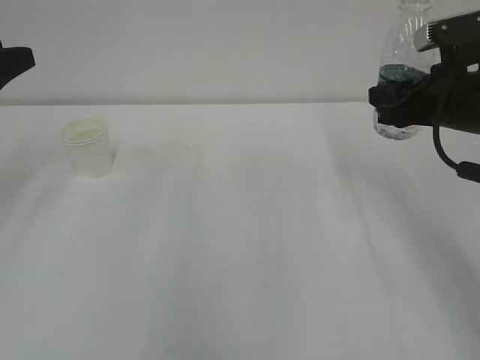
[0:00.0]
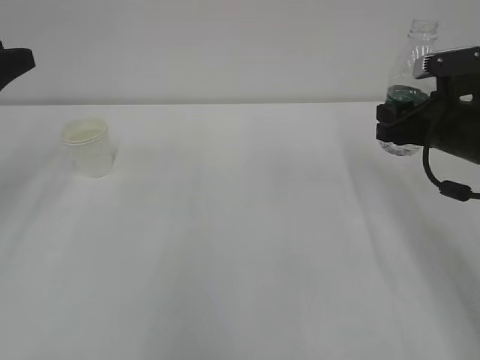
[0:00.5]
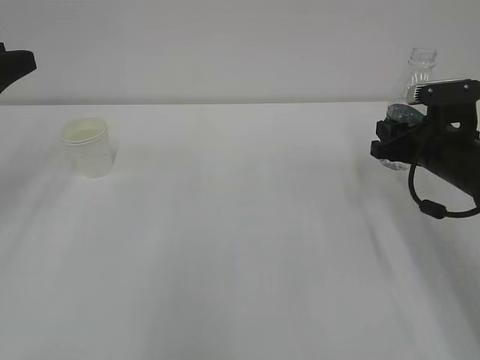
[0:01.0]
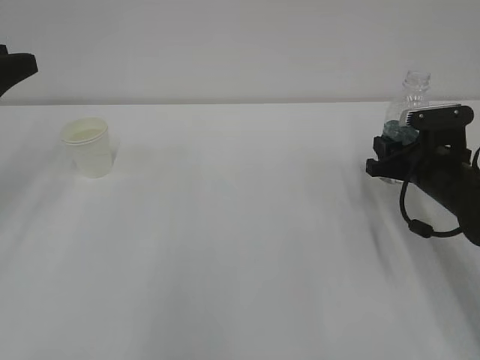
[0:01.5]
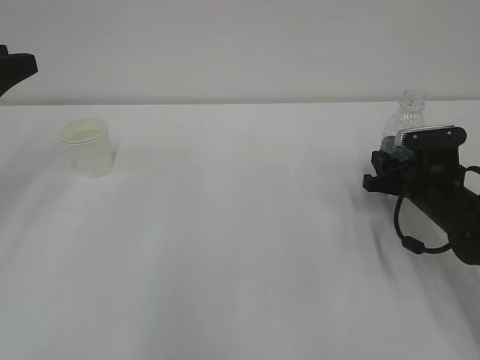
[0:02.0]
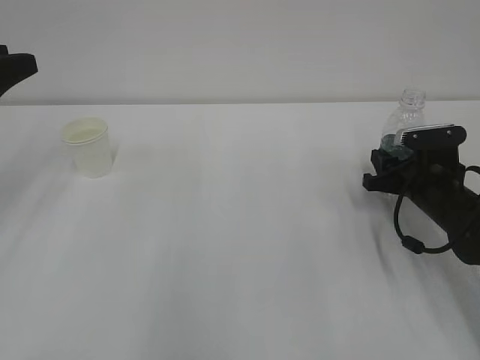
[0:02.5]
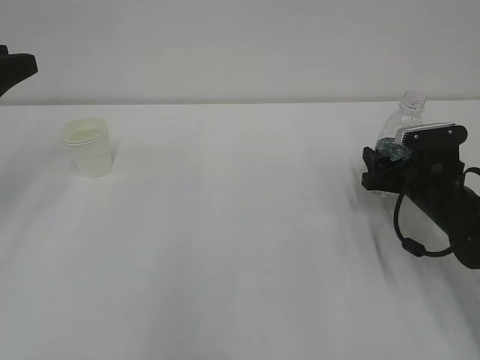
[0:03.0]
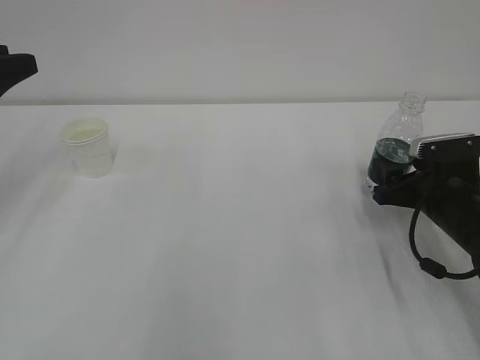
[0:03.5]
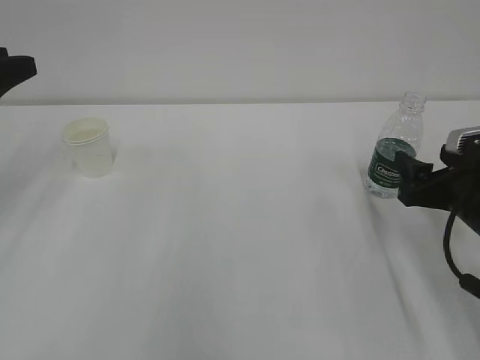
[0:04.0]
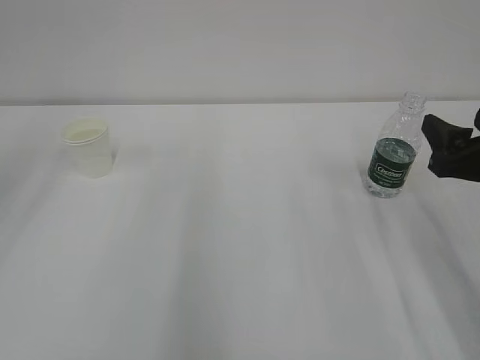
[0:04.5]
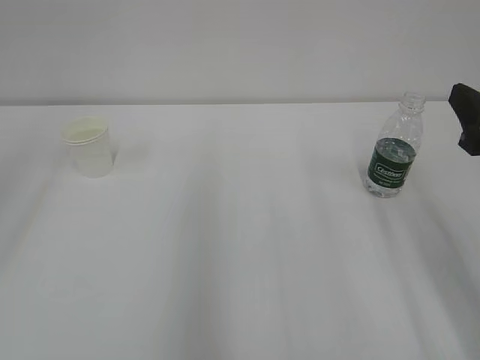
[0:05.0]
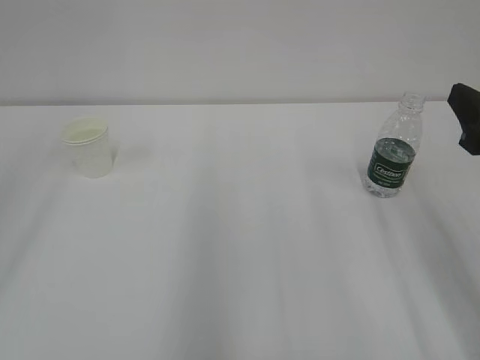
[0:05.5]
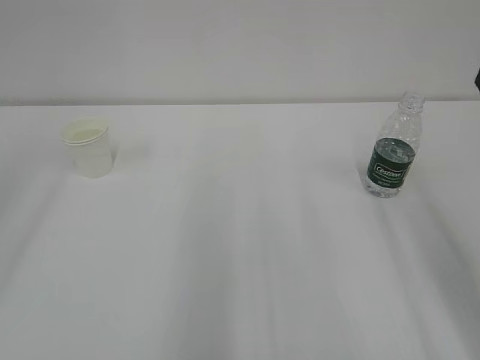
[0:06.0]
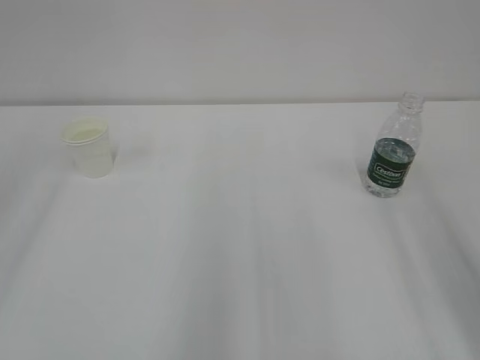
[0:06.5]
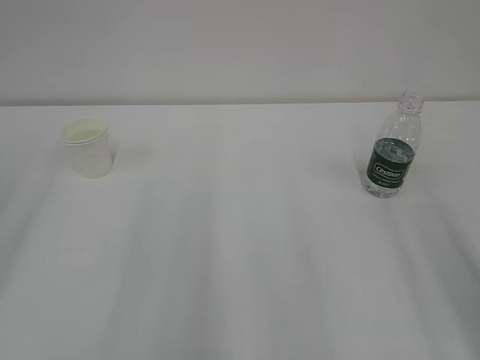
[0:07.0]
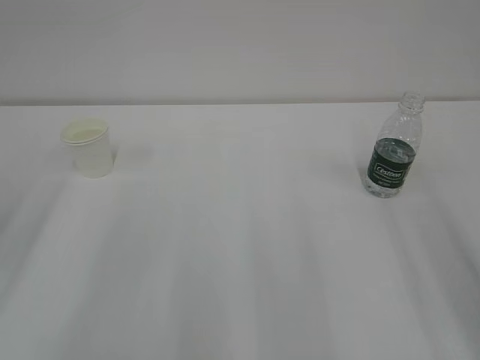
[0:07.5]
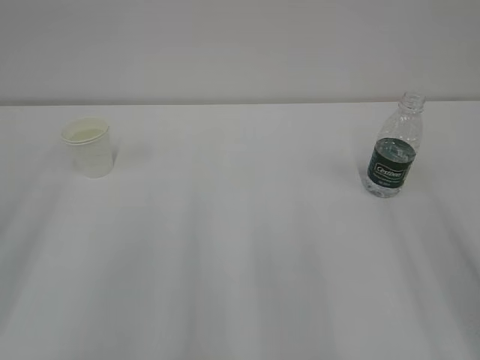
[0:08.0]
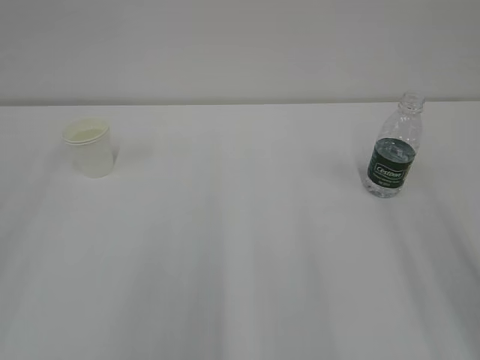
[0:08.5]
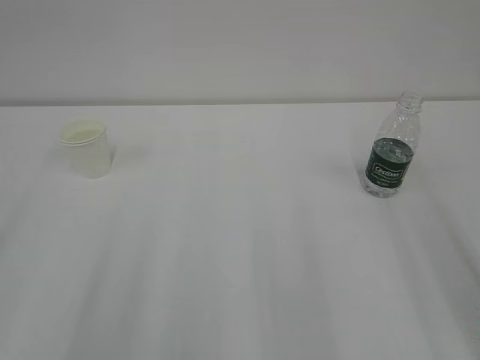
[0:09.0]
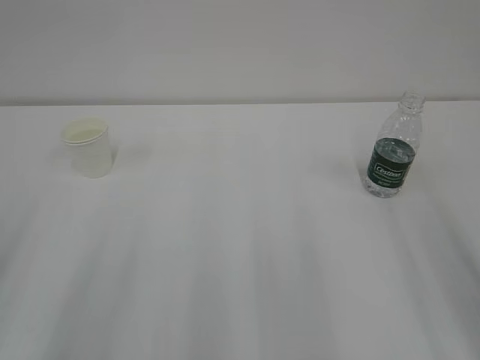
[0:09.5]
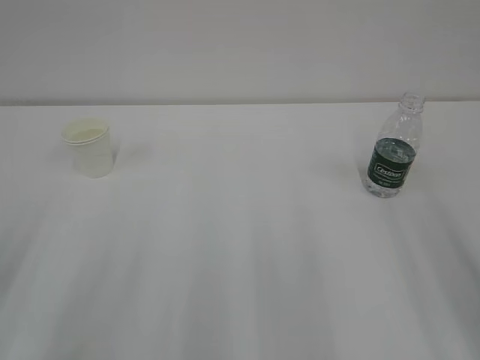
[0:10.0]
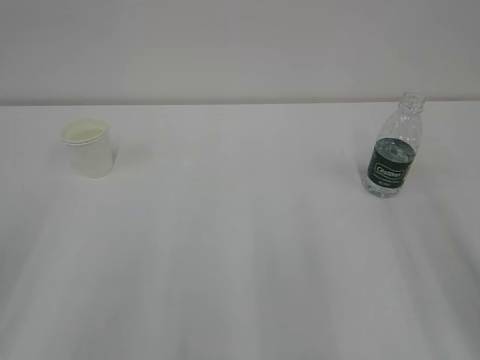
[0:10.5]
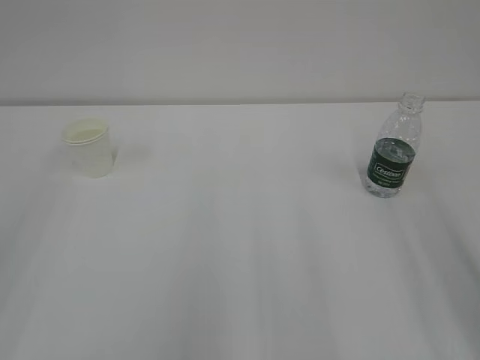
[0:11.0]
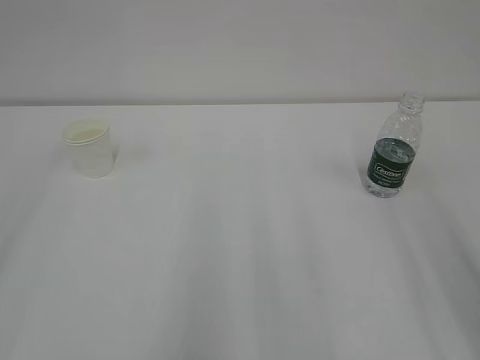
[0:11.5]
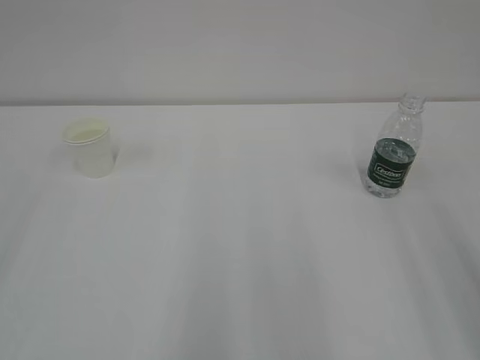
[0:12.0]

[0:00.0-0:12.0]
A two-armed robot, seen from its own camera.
0:00.0 to 0:02.0: The right gripper is displaced downward by some 15 cm.
0:02.0 to 0:04.0: The right gripper is displaced backward and upward by some 10 cm, and opens up.
0:04.0 to 0:06.0: Both grippers move upward and backward, approximately 15 cm.
0:06.0 to 0:08.0: The left gripper goes about 15 cm downward.

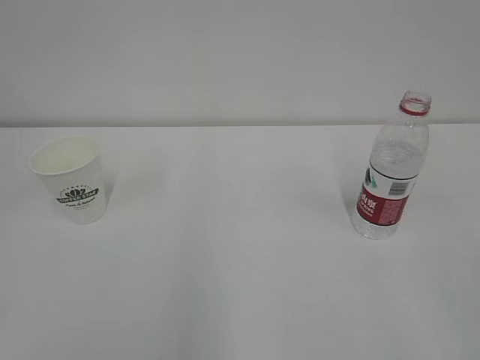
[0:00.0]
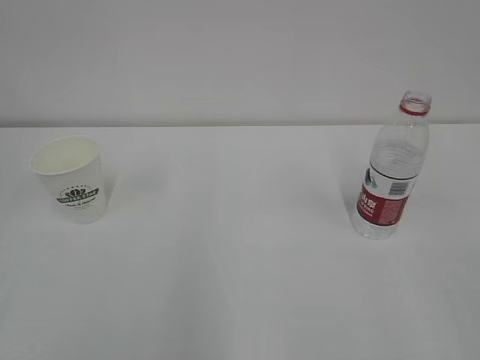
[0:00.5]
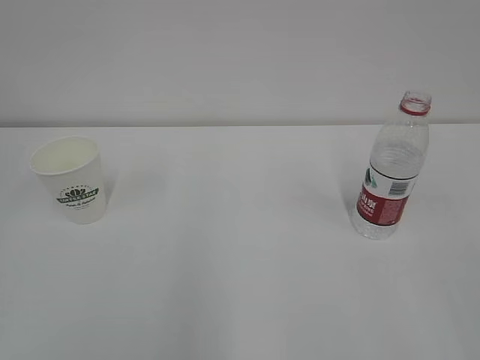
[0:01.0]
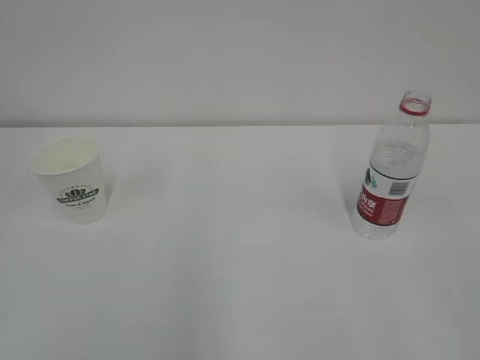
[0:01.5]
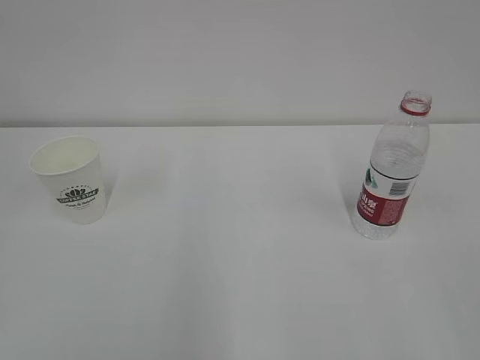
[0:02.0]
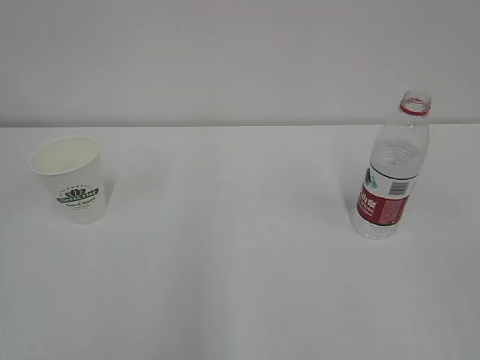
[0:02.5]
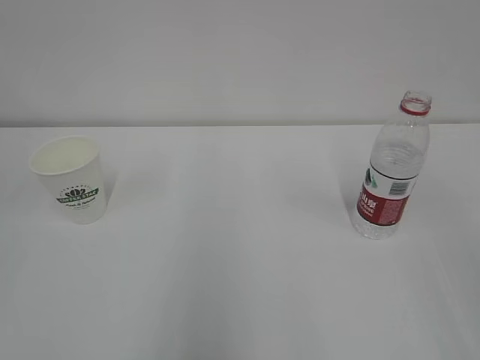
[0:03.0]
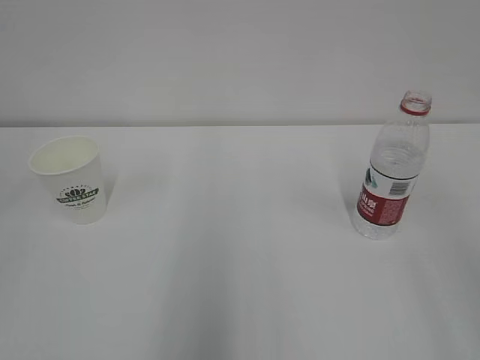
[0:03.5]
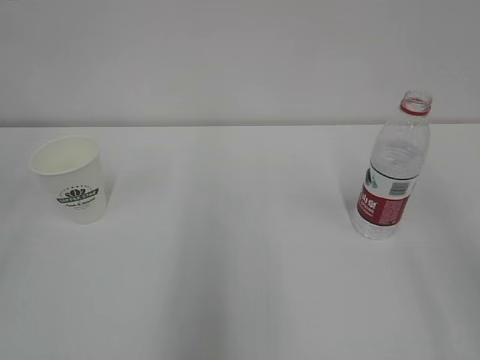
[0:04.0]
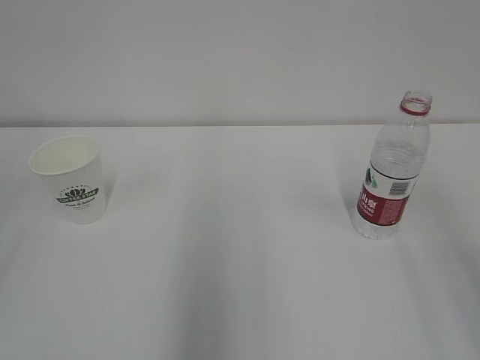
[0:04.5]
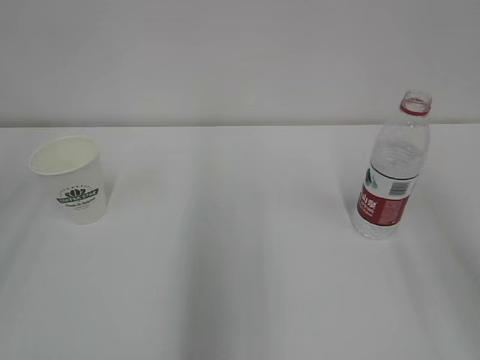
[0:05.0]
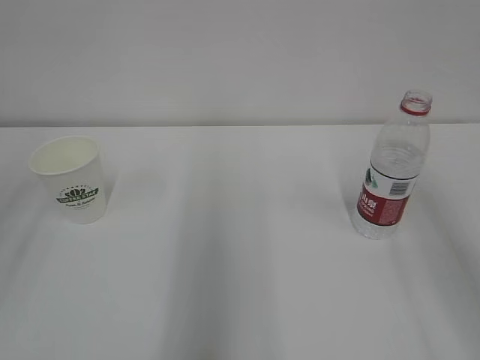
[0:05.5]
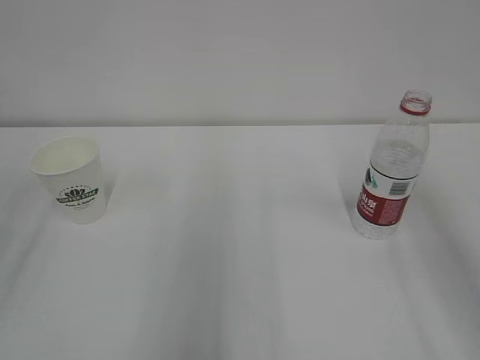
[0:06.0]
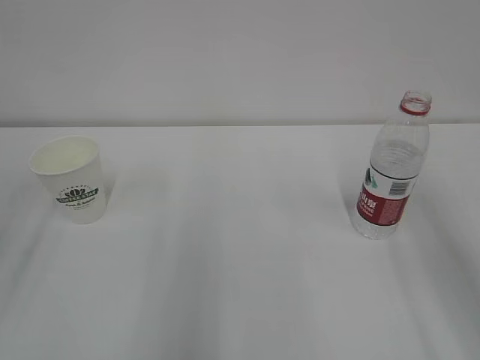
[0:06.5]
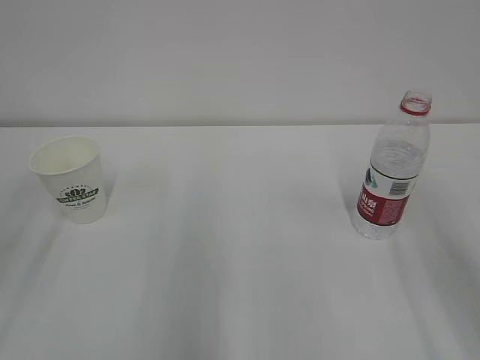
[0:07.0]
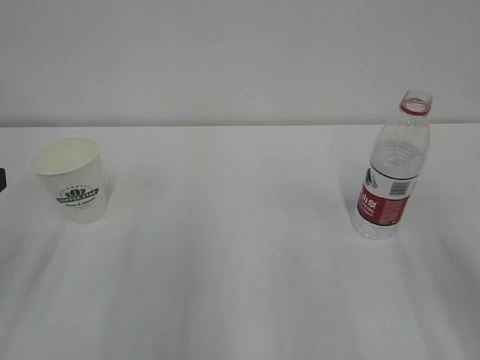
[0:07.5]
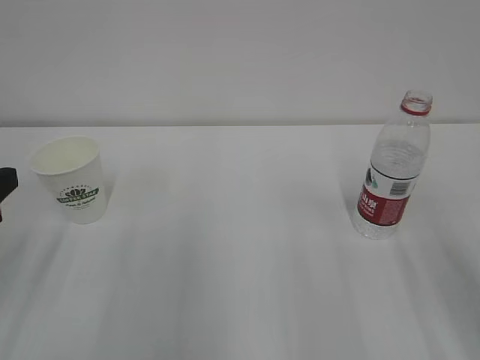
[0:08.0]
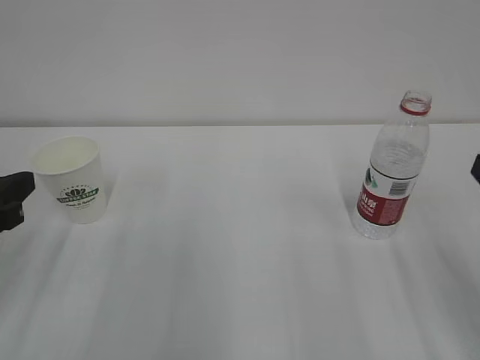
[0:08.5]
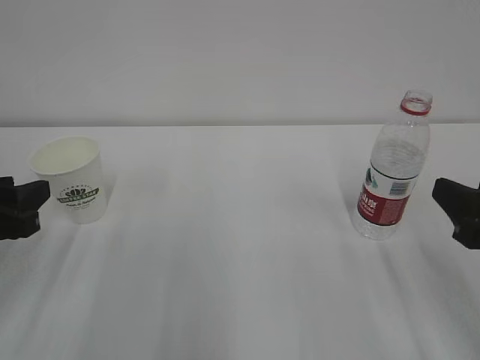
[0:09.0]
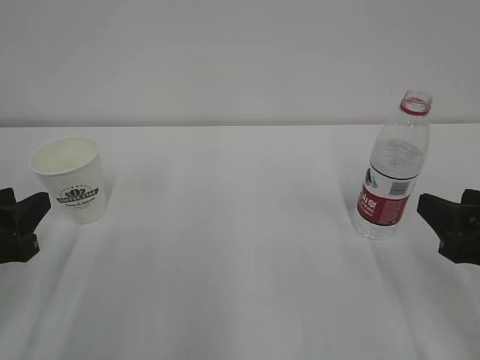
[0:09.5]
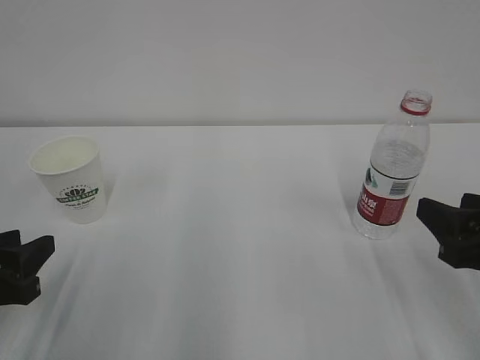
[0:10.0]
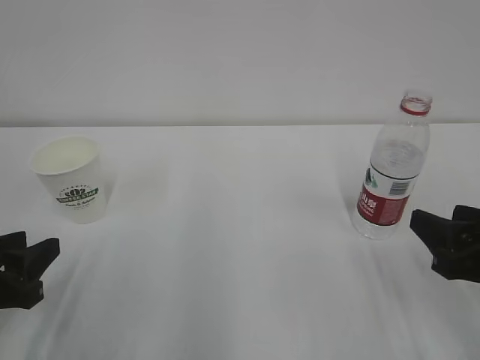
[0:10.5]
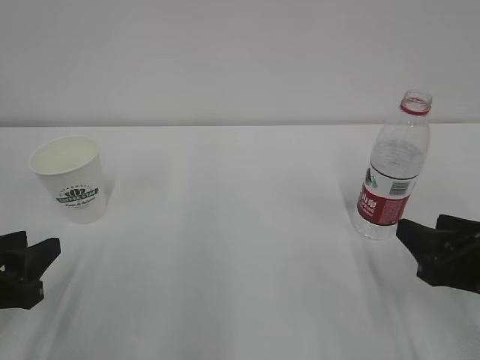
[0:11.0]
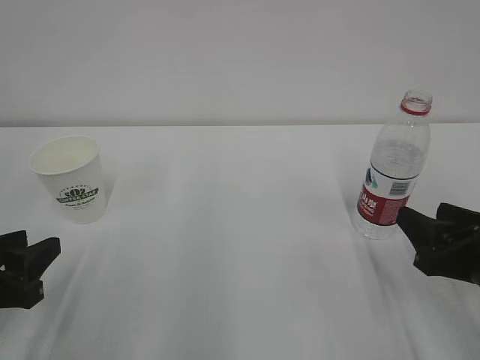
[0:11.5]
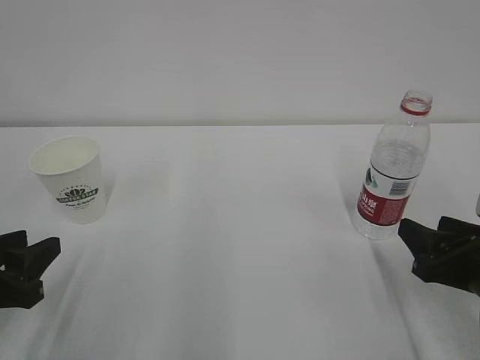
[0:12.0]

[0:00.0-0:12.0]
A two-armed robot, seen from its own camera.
0:08.0 to 0:10.0: Both grippers travel together downward, approximately 10 cm.
0:10.0 to 0:12.0: The right gripper is displaced downward by roughly 5 cm.

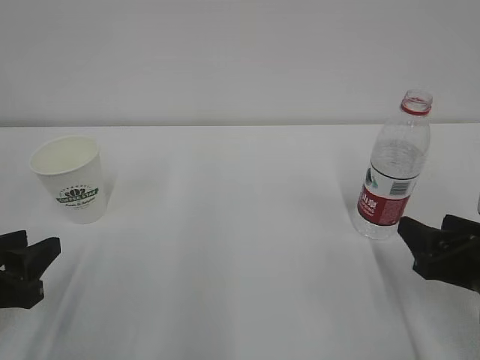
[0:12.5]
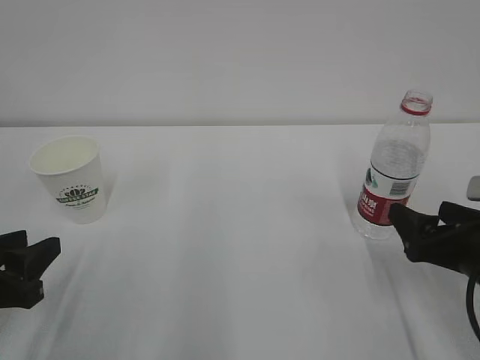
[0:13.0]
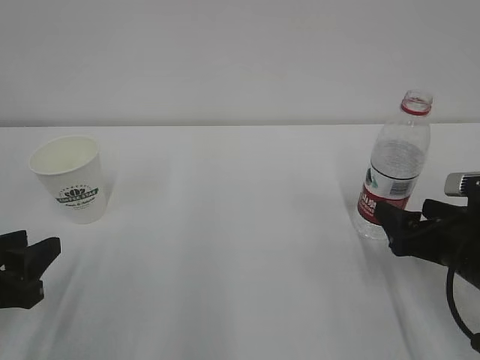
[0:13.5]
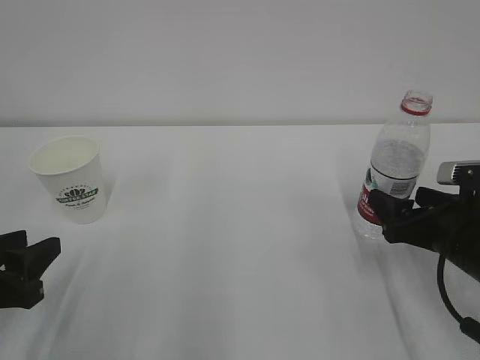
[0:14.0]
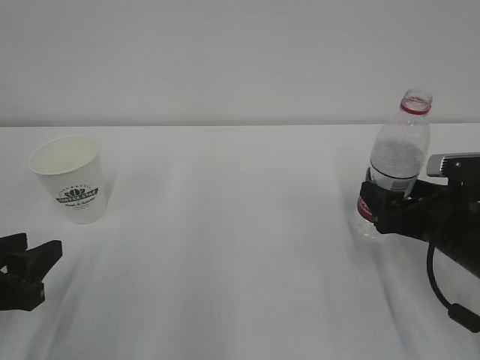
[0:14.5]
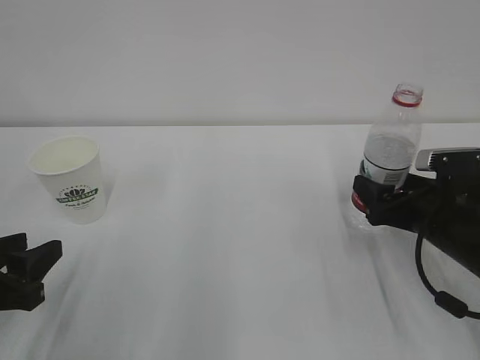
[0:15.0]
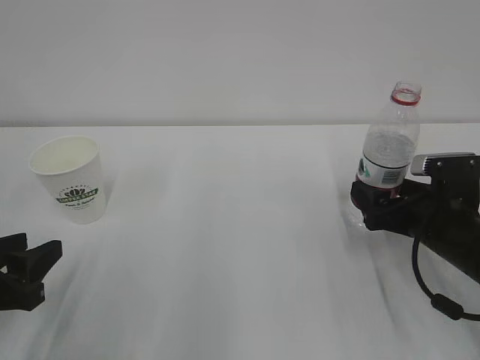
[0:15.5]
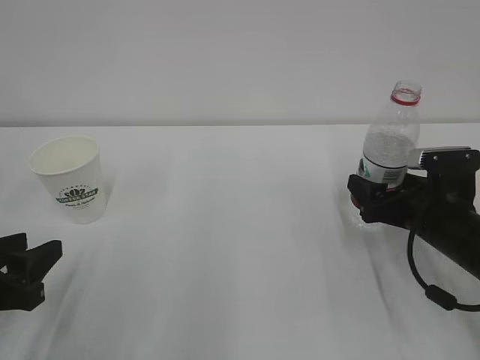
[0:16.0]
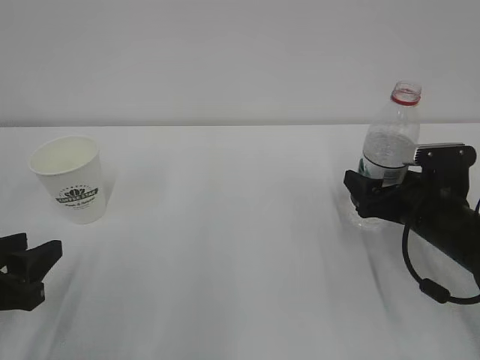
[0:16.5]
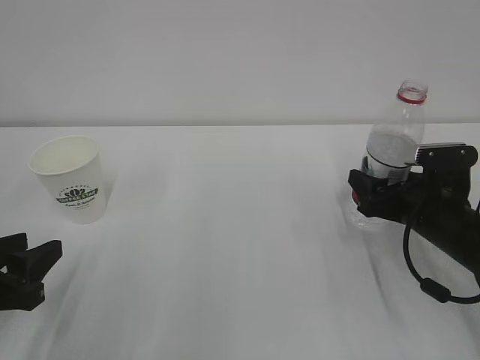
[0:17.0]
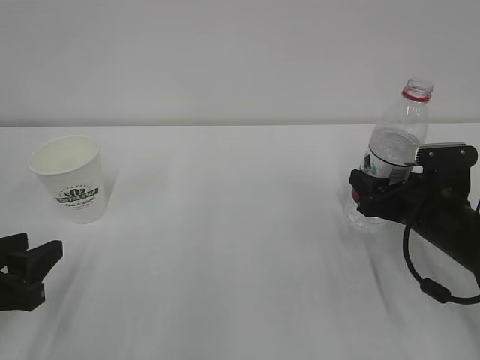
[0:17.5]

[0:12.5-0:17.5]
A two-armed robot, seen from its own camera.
0:12.5 to 0:15.0: The right gripper travels forward by roughly 10 cm, and opens.
0:15.0 to 0:17.5: The right gripper closes its fingers.
